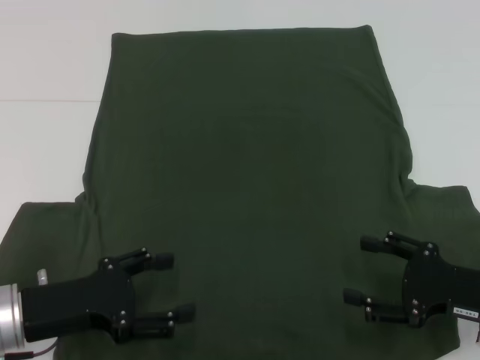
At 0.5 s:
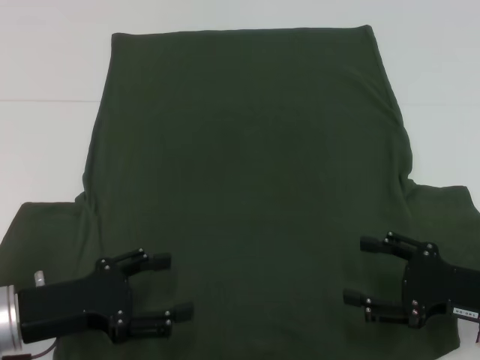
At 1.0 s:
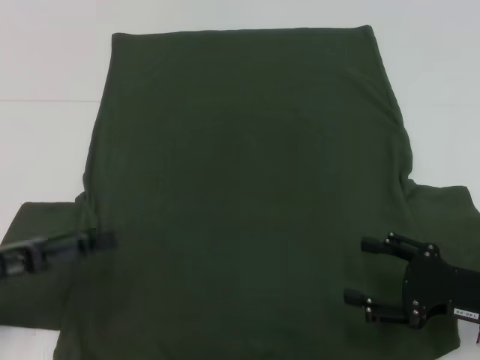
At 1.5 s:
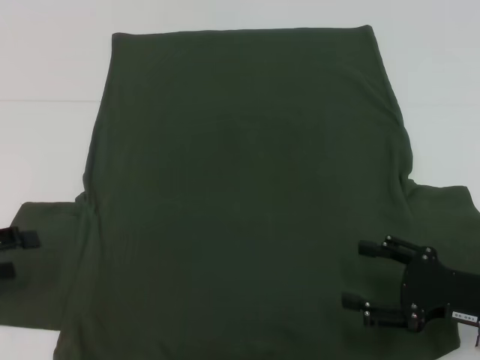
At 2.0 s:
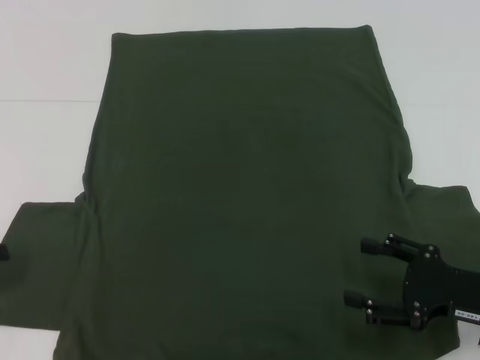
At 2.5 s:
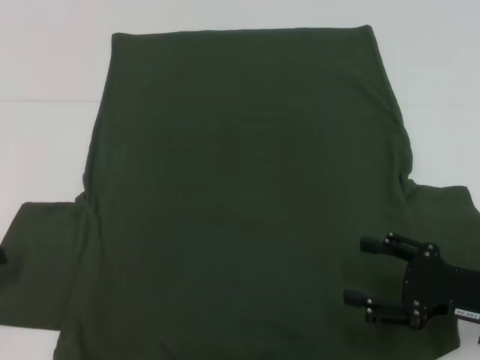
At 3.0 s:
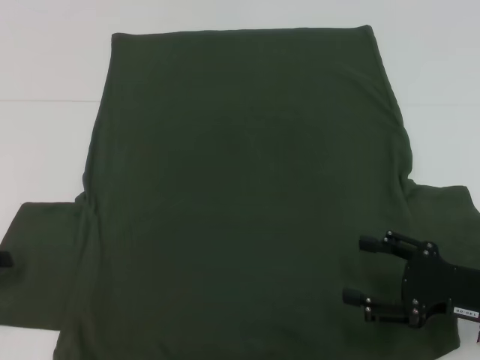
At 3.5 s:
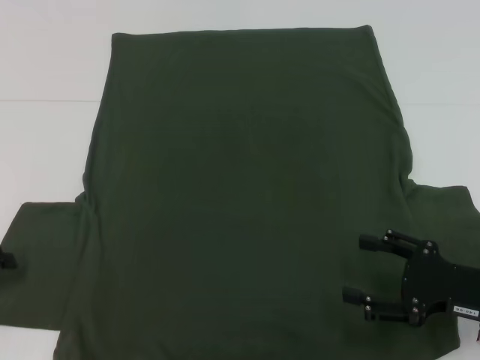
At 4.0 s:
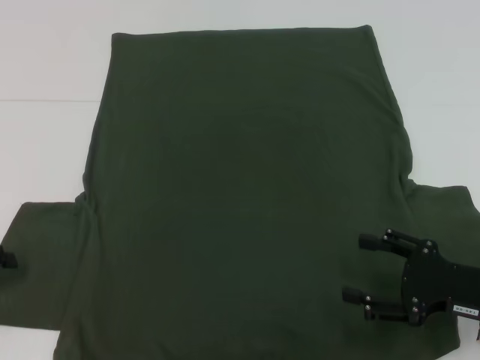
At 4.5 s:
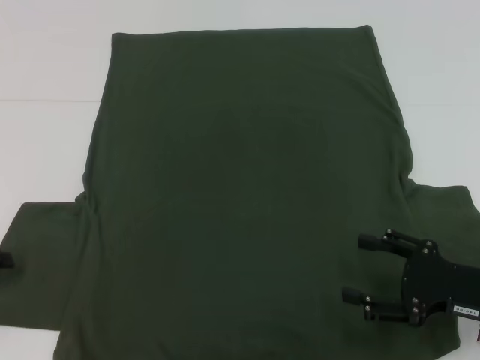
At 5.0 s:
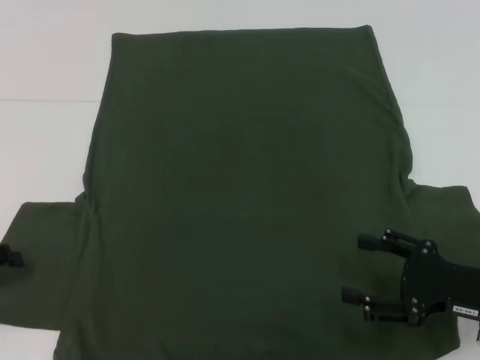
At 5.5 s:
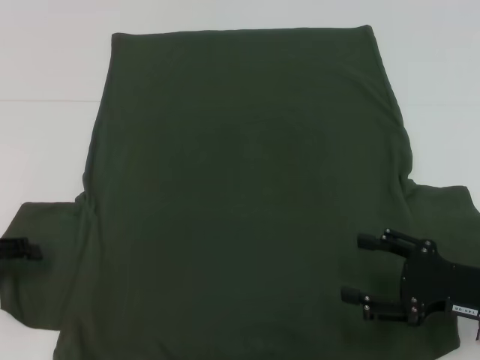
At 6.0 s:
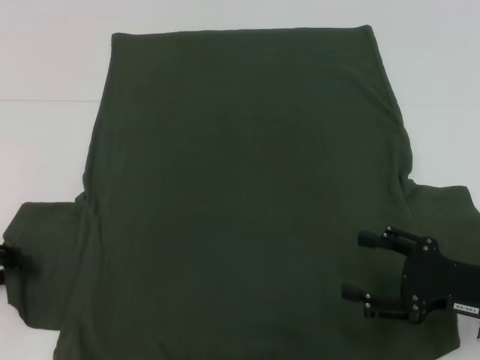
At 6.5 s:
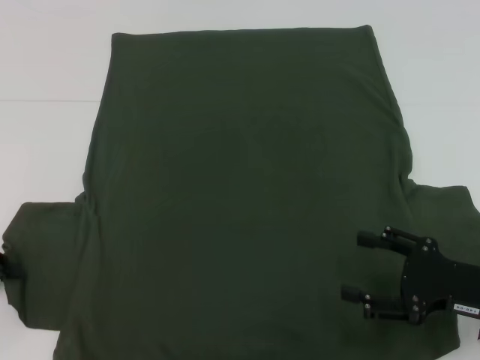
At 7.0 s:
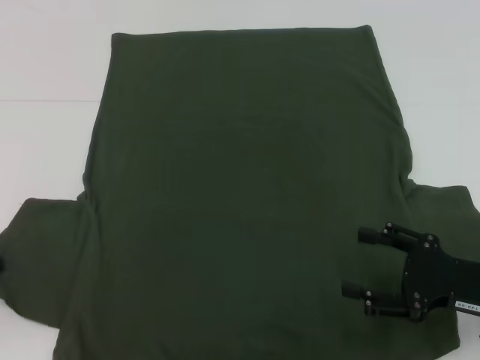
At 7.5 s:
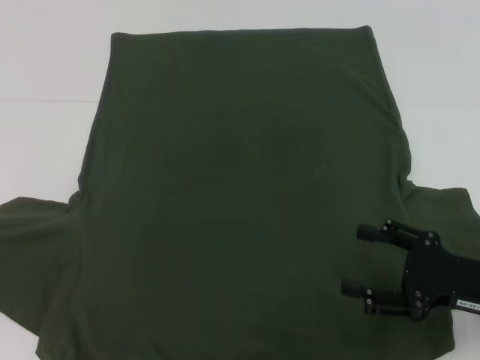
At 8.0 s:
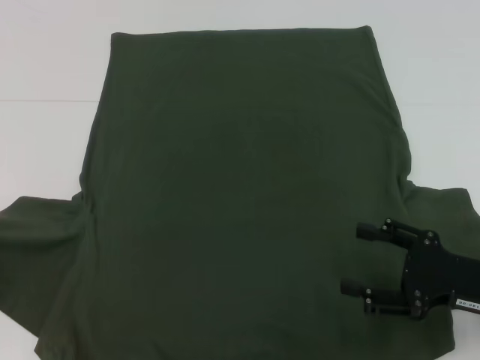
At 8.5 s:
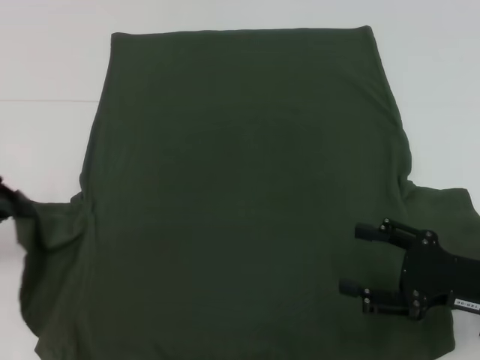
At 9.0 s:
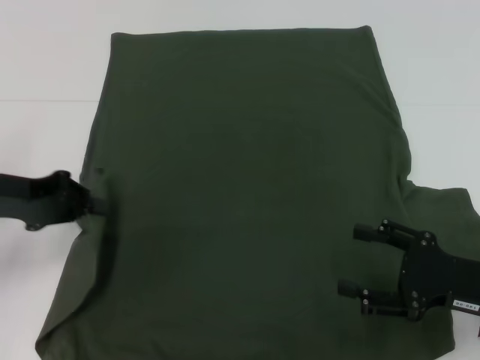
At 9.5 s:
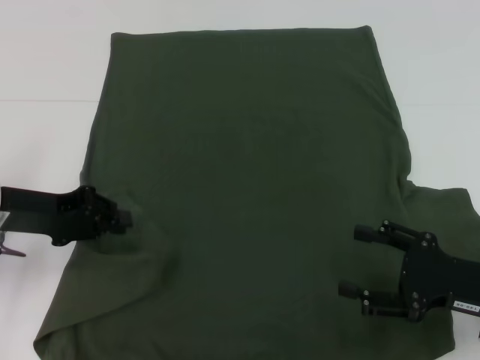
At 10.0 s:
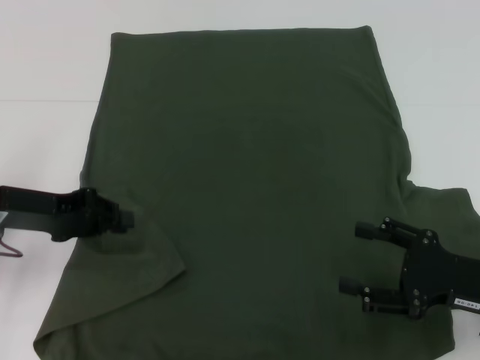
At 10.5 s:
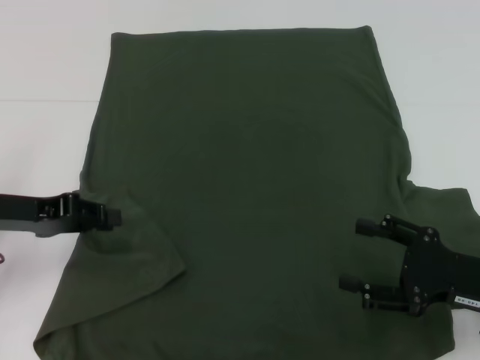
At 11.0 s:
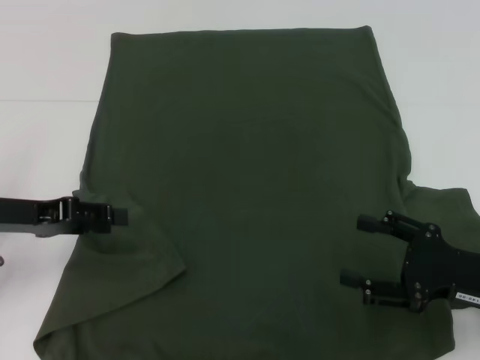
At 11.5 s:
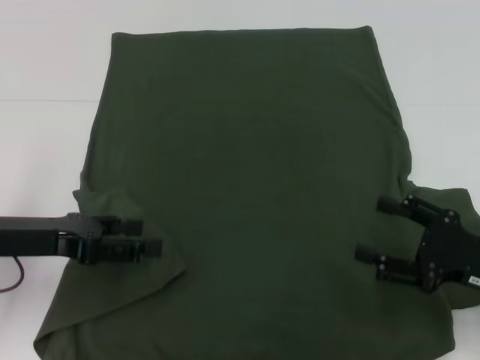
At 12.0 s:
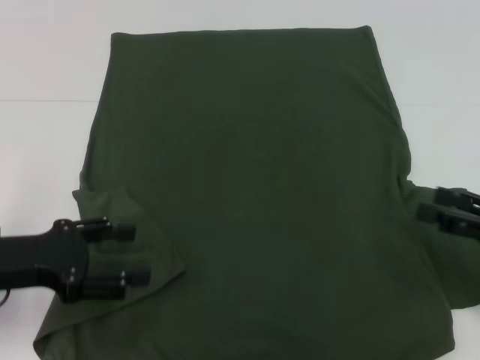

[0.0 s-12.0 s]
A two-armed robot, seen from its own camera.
Step, 0.0 to 9.5 s: Fold the bottom left sleeve with your left hand.
0.0 to 2.0 s: The left gripper is displaced to the left by roughly 15 cm.
4.0 to 6.0 s: The grippers move only a little.
6.0 to 8.0 s: The left gripper closes its fingers.
8.0 to 10.0 s: The left gripper heads to the right, covering about 10 cm.
10.0 to 12.0 s: The right gripper shifts some 5 cm to the right. The left gripper moves backward, roughly 5 cm, and opens its fingers.

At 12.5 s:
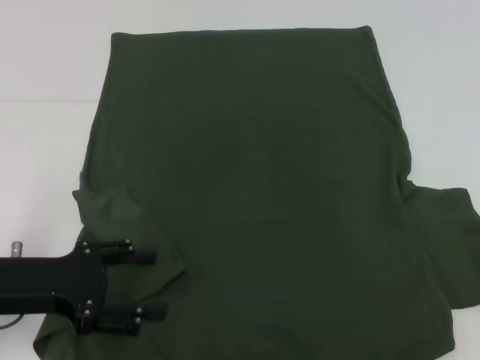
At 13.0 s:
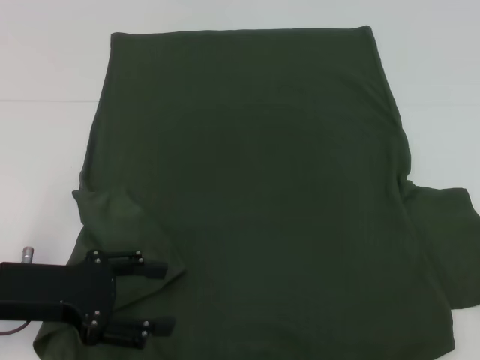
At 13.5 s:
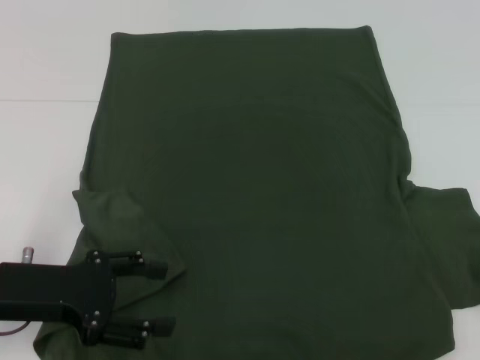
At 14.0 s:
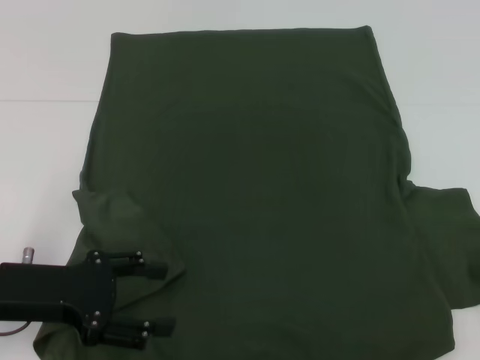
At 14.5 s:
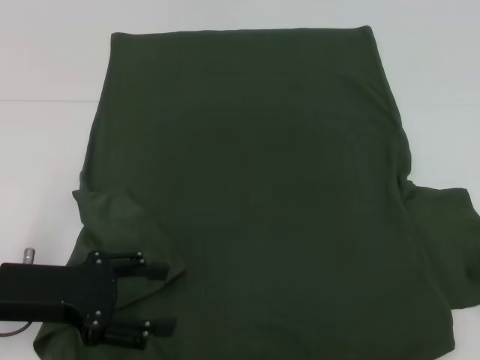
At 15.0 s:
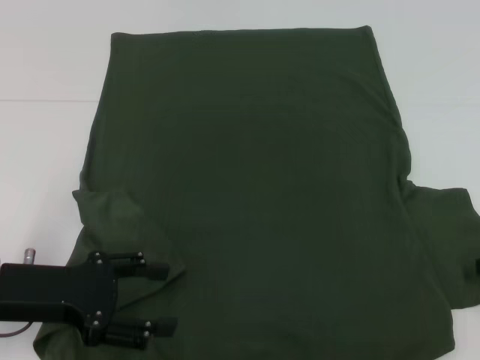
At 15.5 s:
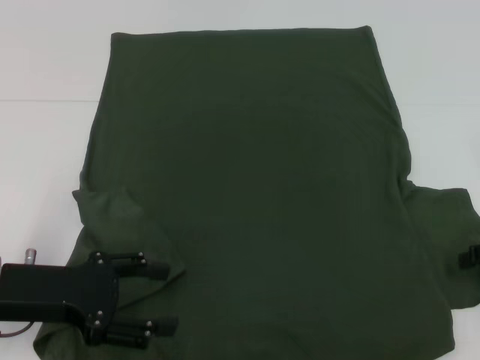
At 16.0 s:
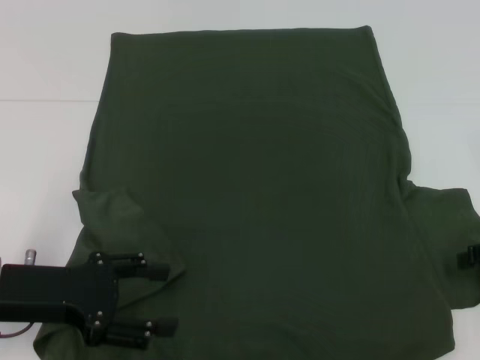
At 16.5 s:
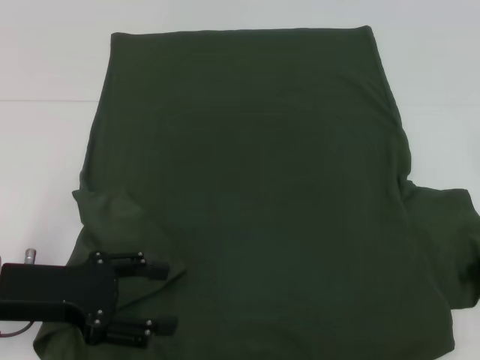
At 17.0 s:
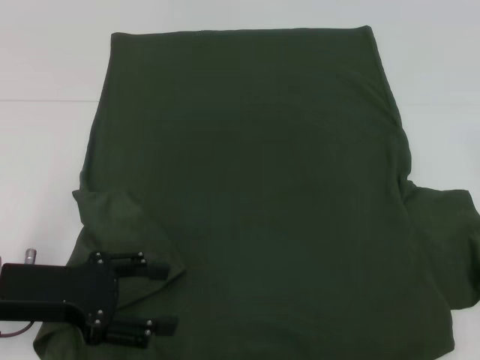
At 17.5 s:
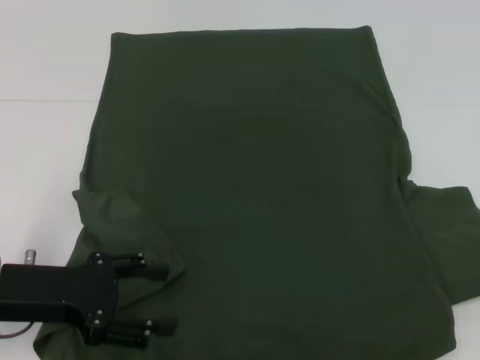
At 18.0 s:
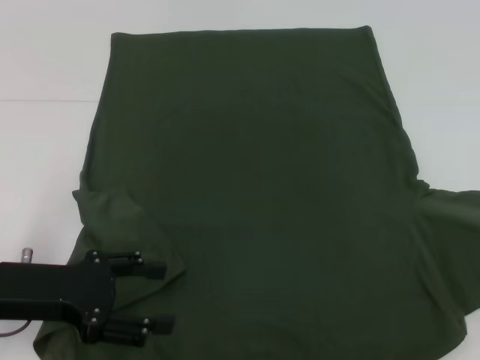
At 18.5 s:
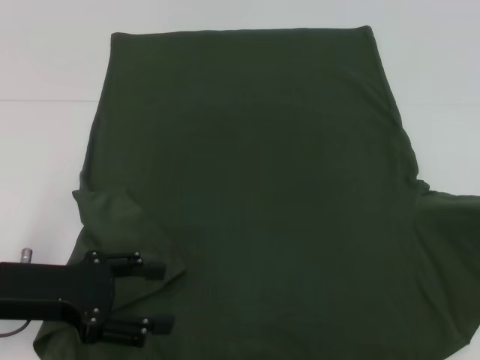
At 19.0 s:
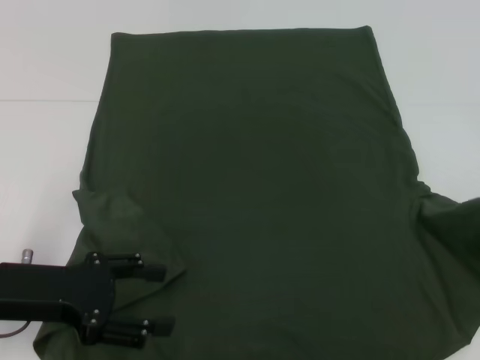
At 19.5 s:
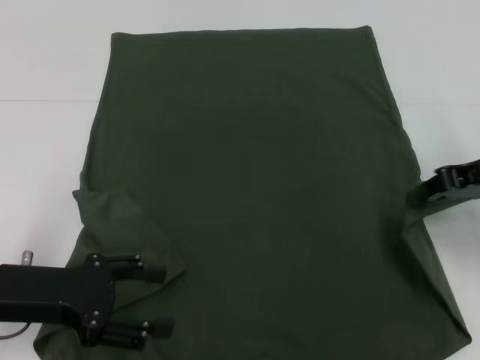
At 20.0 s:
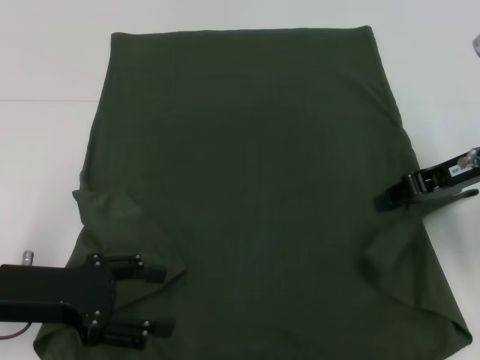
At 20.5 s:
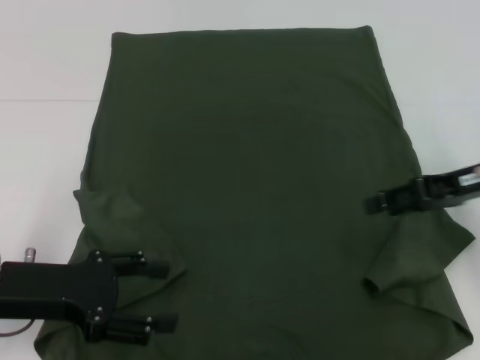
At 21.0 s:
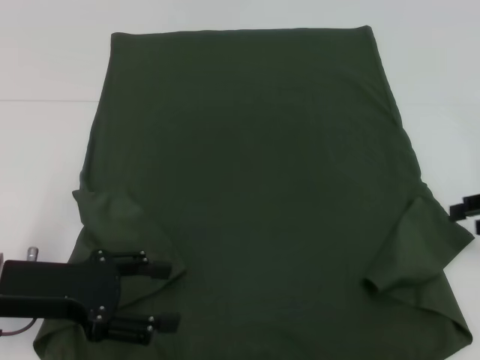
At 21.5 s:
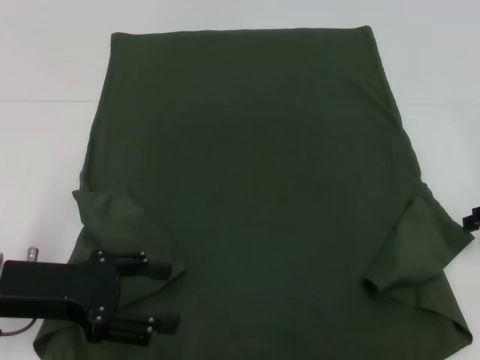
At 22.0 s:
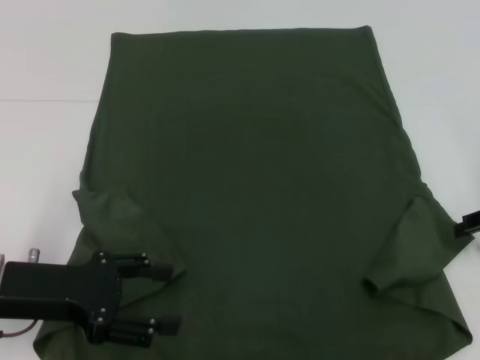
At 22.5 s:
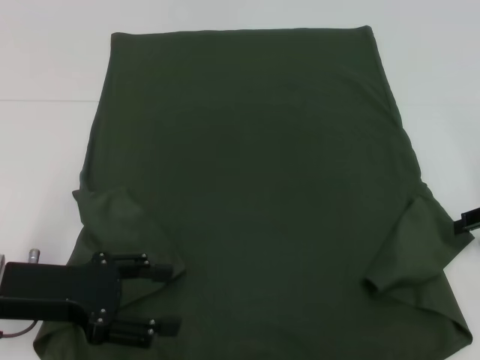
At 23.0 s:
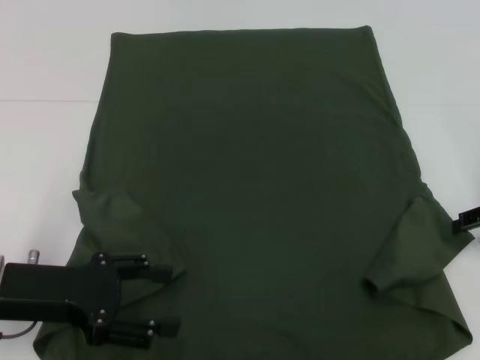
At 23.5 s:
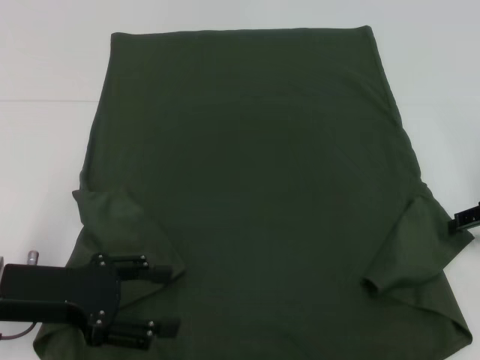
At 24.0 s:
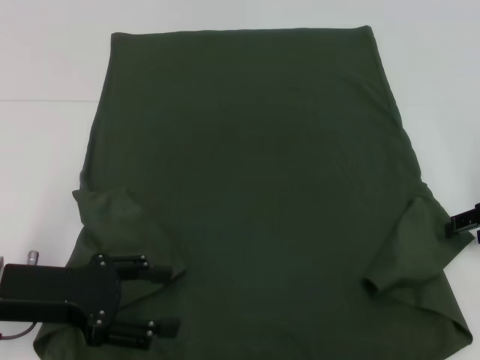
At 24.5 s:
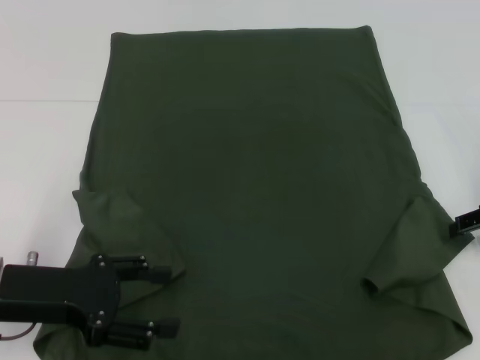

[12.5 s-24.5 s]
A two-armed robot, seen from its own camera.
16.5 to 18.5 s: The right gripper goes about 5 cm upward, and closes.
18.5 to 20.5 s: The right gripper travels to the left by roughly 15 cm, and opens.
20.5 to 22.5 s: The right gripper moves to the right, roughly 5 cm.

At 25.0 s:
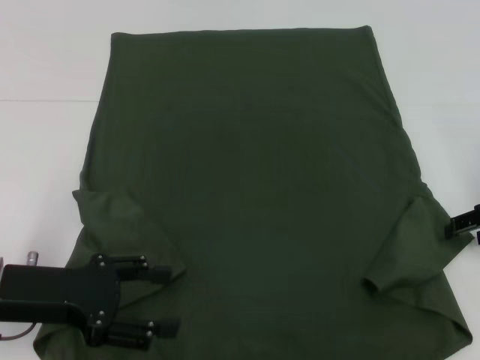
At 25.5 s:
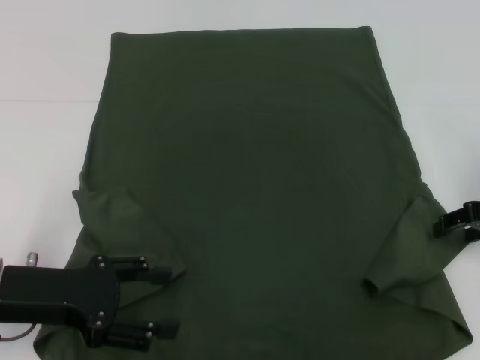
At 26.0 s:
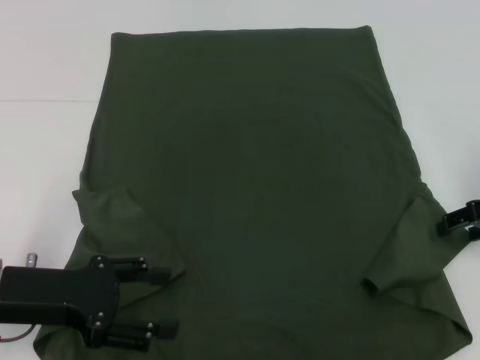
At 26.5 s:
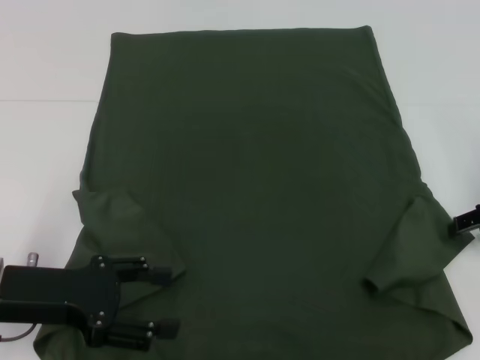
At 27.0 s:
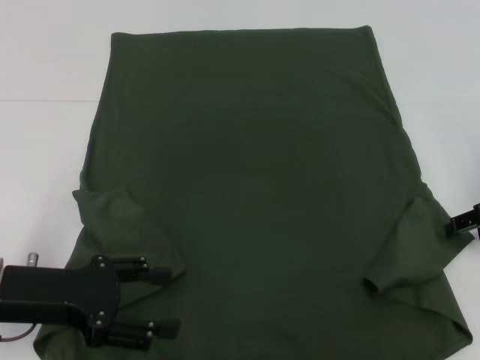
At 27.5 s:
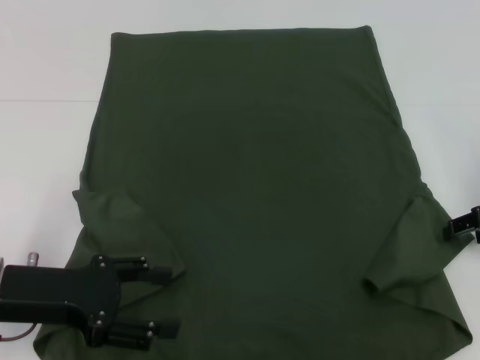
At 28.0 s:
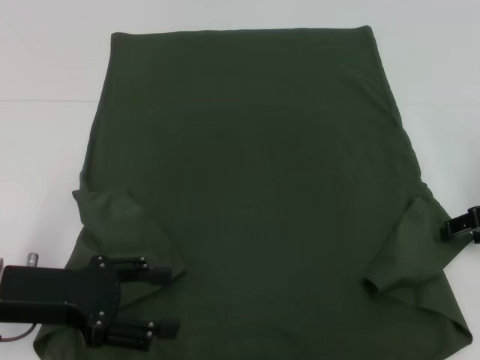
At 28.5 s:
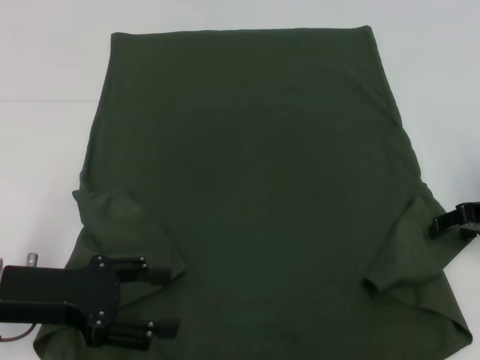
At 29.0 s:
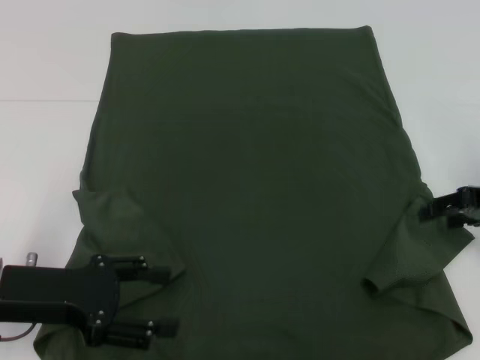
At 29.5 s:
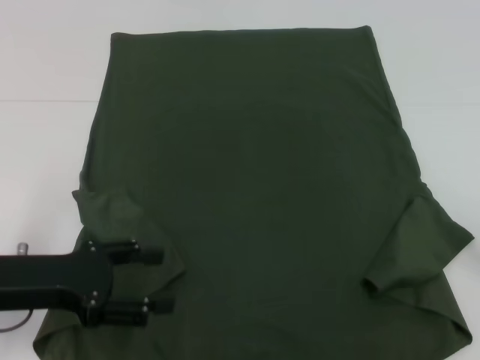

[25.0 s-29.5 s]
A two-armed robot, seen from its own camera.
27.0 to 29.5 s: The right gripper travels backward and to the right by approximately 15 cm.
